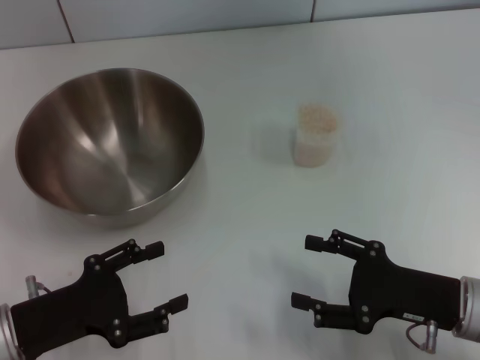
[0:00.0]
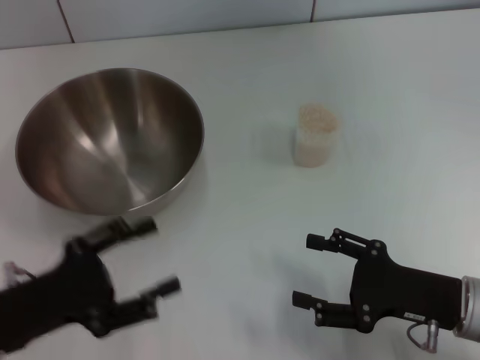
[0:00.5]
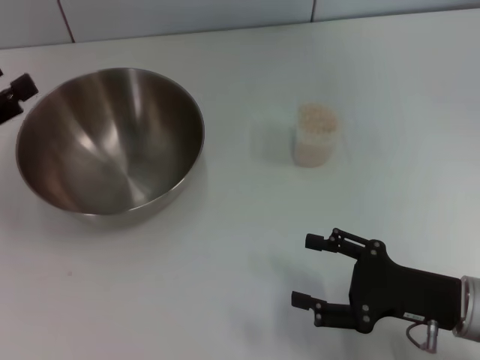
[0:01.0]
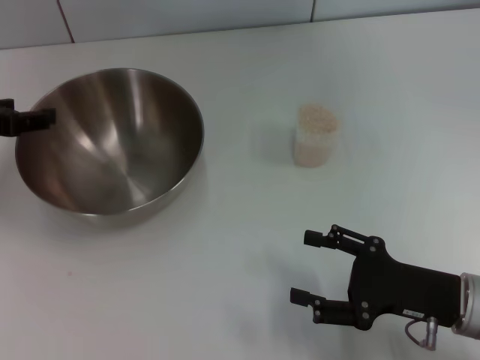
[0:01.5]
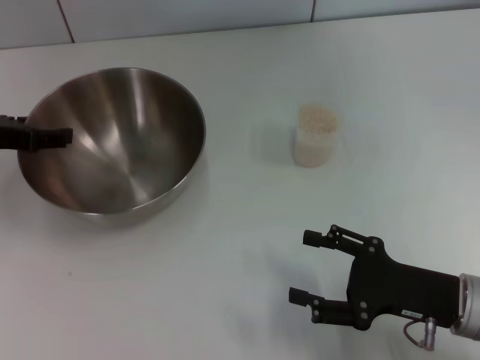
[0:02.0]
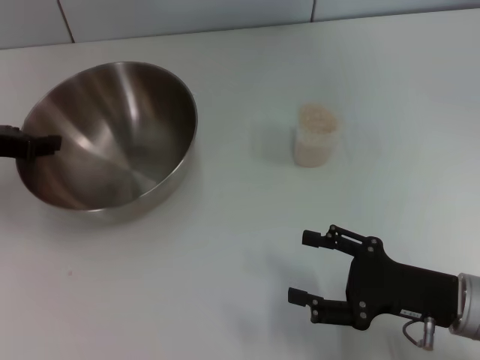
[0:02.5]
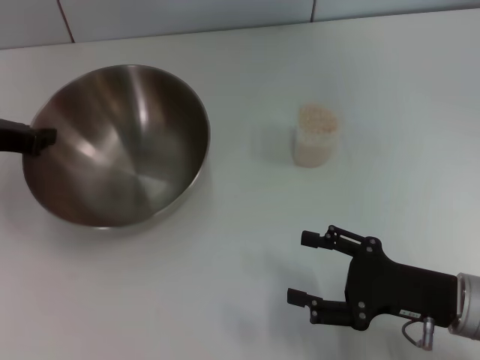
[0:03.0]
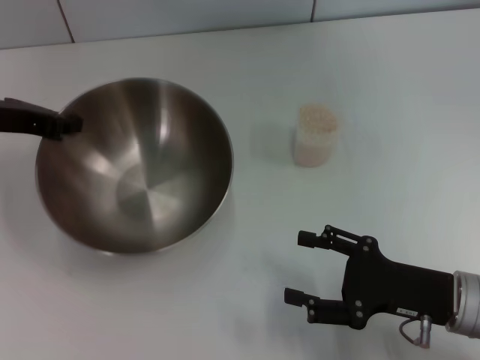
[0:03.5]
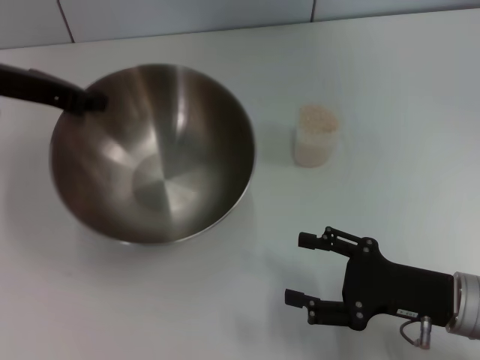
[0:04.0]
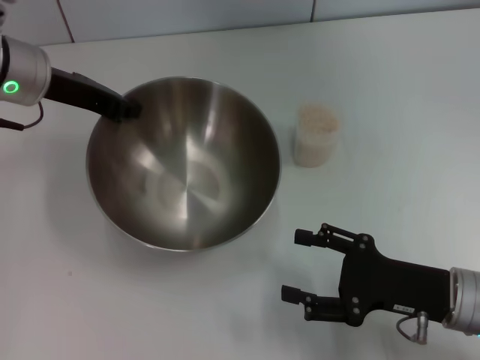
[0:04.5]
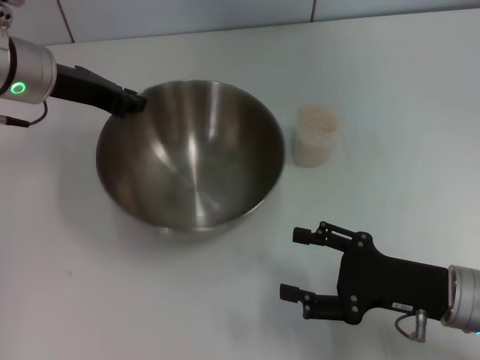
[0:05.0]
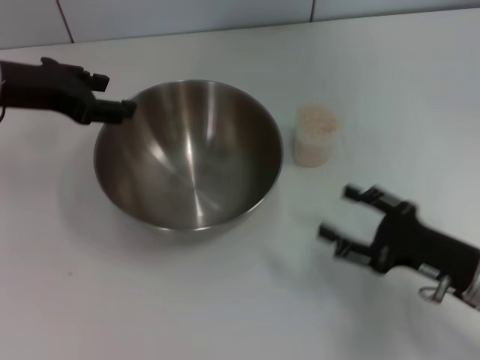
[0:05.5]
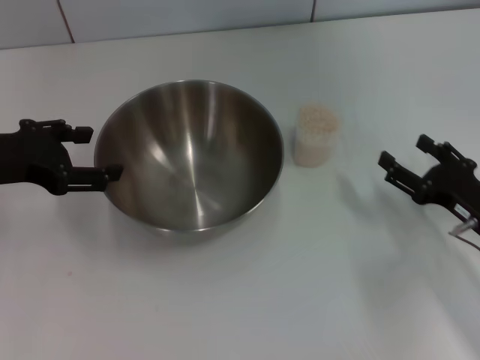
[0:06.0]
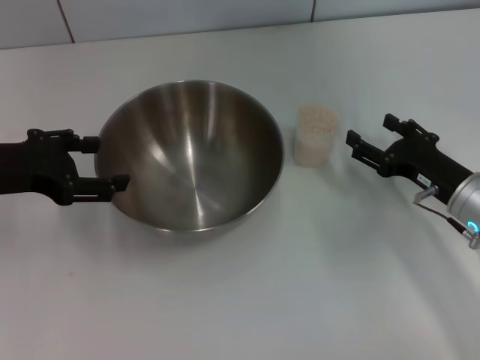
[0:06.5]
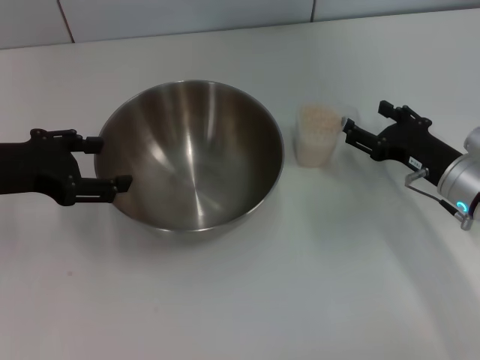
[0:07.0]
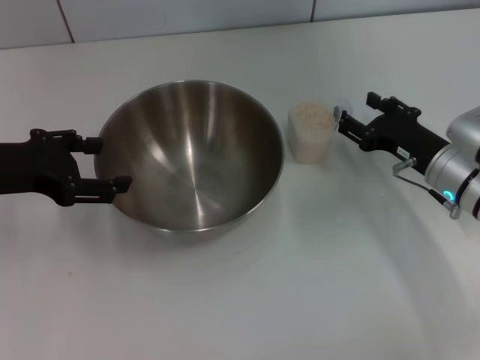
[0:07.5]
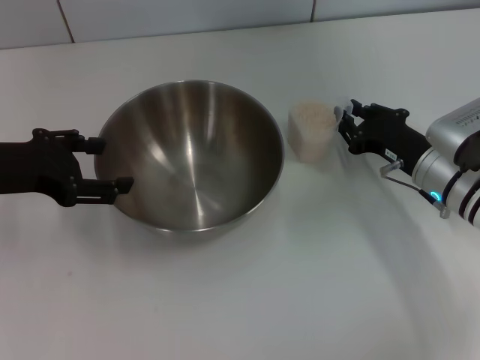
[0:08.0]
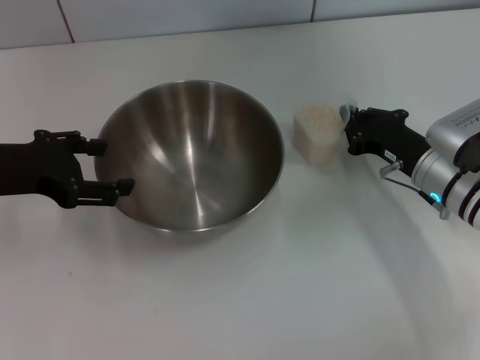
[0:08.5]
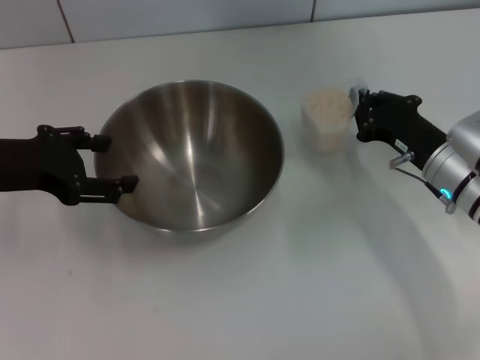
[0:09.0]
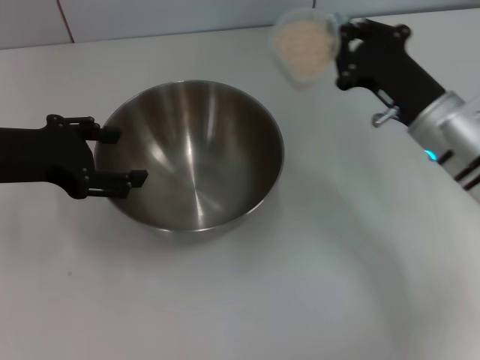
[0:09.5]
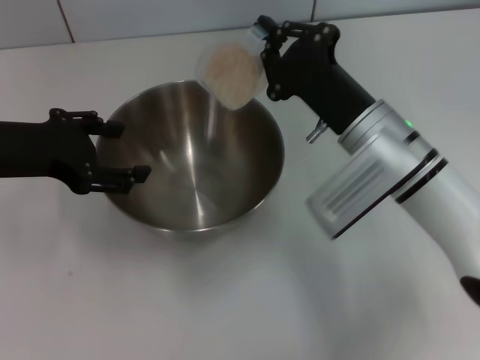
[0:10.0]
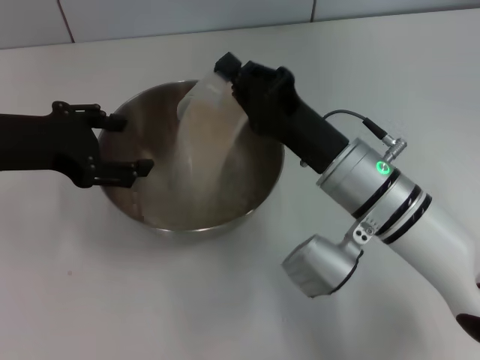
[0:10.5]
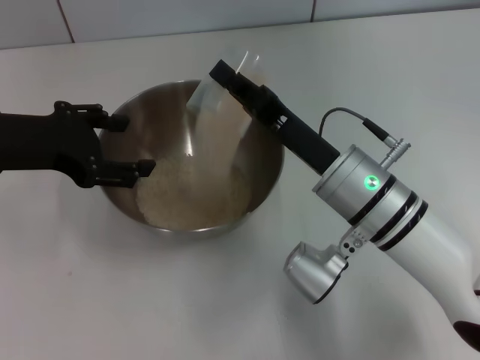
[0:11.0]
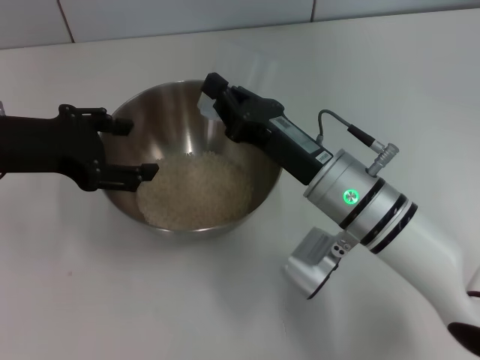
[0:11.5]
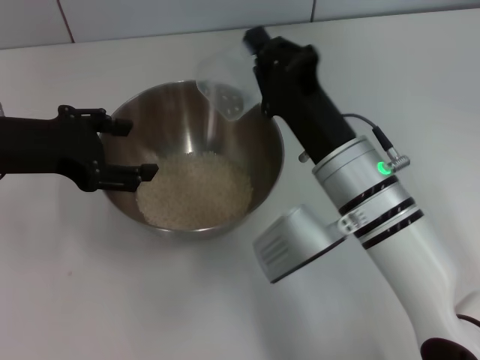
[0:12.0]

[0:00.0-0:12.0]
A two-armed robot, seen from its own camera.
Task of the whole recording: Place the bowl in the middle of the table with one hand and pour the rice from the grain cup into it with the other hand.
Step, 0.0 to 4.0 s: Pick up the bowl with the left gripper.
Step, 4.5 to 5.5 s: Place the bowl in the center of view with the left gripper.
Step, 6.0 to 9.0 s: Pick up the cup with rice in it with the right gripper.
0.0 to 2.0 s: The left gripper is displaced forward and upward by roughly 20 cm.
2.0 to 4.0 s: The left gripper shifts by roughly 10 cm, and closes up.
4.0 to 6.0 s: The right gripper heads to the right, covering about 5 cm. The left gripper is displaced backward by approximately 10 cm, and opens its fingers.
6.0 to 8.0 s: The right gripper travels forward and to the left by about 10 cm, and closes its fingers.
8.0 to 10.0 s: The right gripper heads to the left and upward, covering some 10 cm, and closes.
10.0 to 12.0 s: The right gripper shifts by approximately 5 cm.

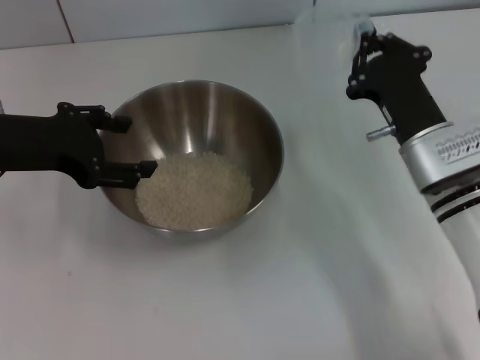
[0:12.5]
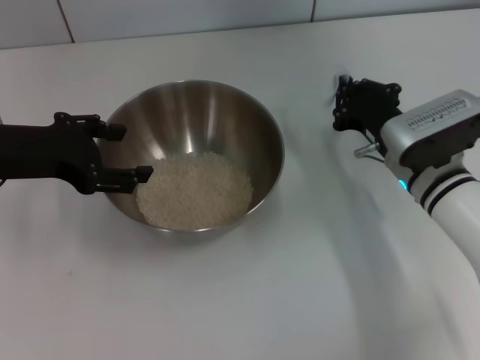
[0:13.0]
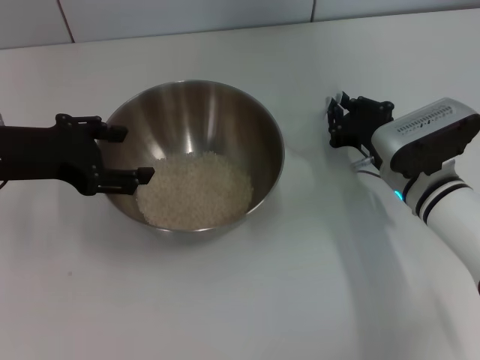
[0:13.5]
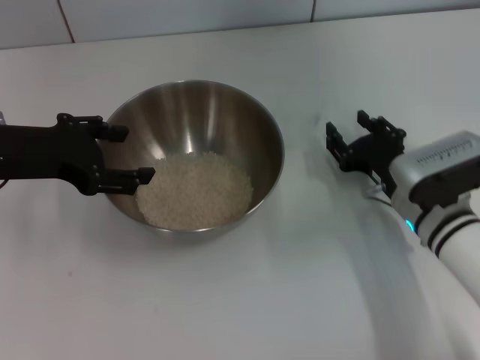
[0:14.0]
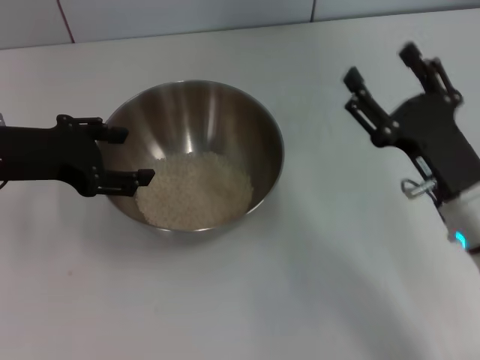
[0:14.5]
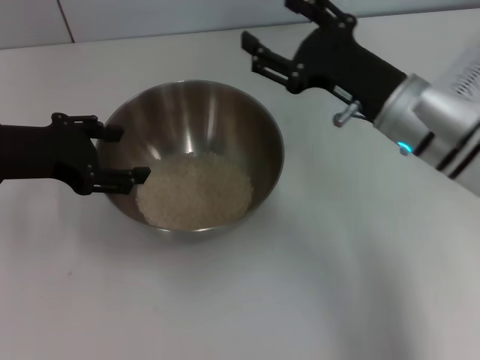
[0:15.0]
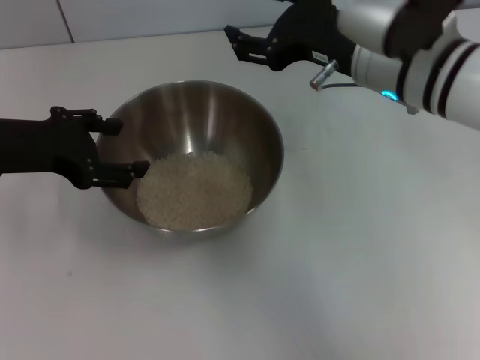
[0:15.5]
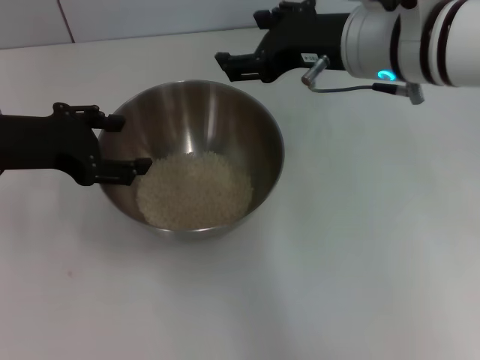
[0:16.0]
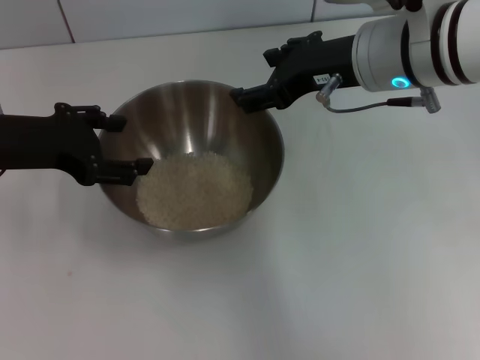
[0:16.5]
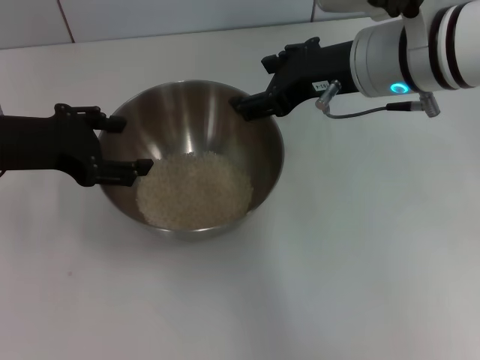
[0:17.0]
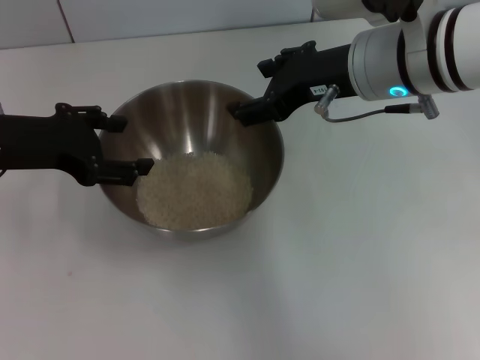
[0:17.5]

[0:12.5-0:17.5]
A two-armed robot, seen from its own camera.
Task of the whole recording: Place the bowl in the middle of the table with one hand and pour the rice from the grain cup into it with the other hand.
Step, 13.0 to 14.0 s: Place the cup on the table with the right gripper.
12.5 to 15.0 s: The right gripper goes some 5 cm upward, and opens its fingers.
15.0 to 17.5 s: The right gripper shifts approximately 10 cm upward.

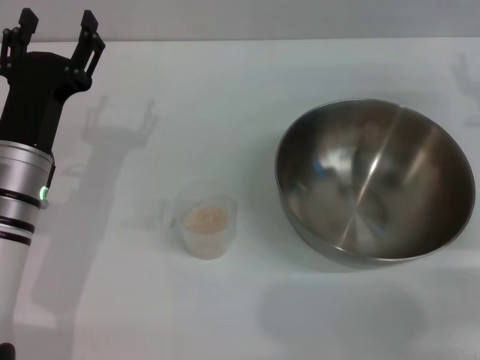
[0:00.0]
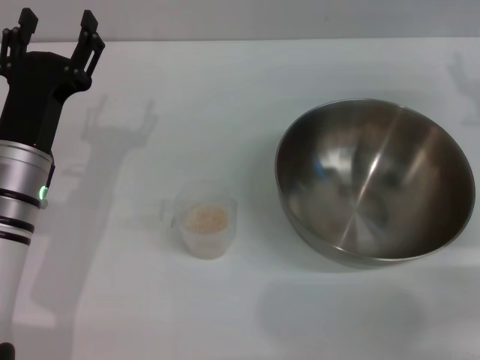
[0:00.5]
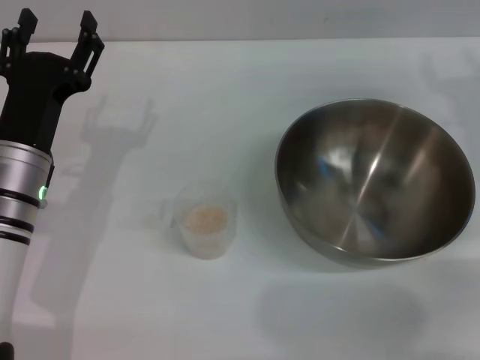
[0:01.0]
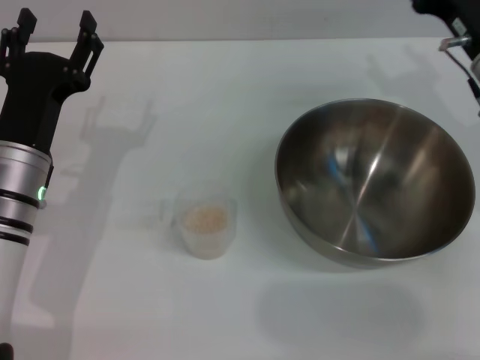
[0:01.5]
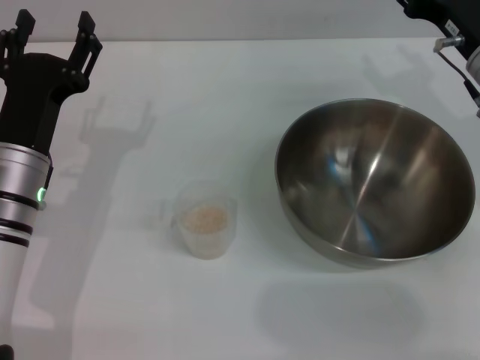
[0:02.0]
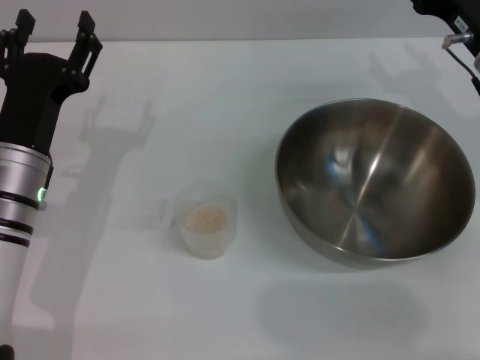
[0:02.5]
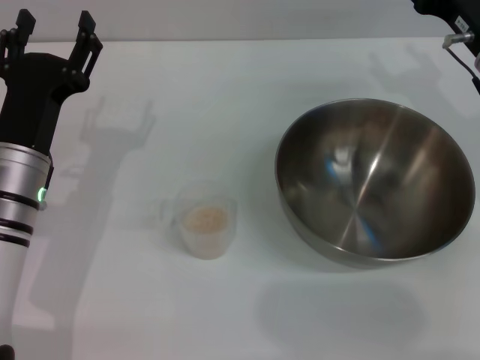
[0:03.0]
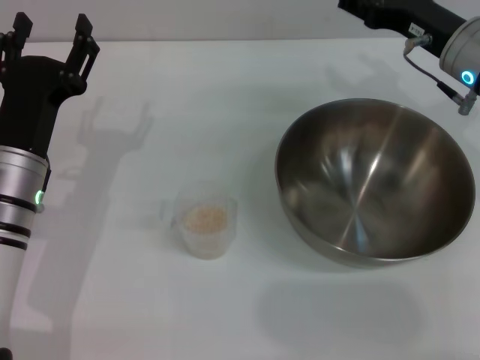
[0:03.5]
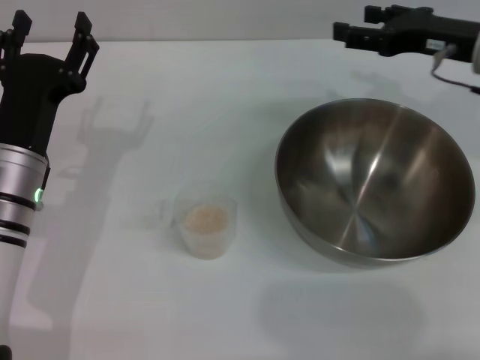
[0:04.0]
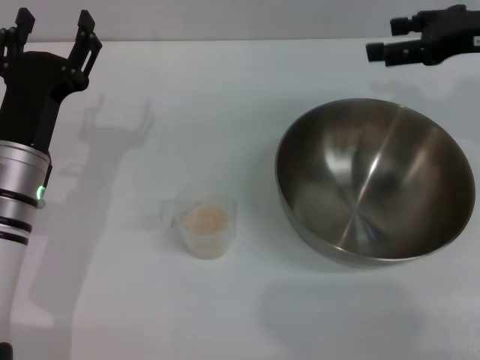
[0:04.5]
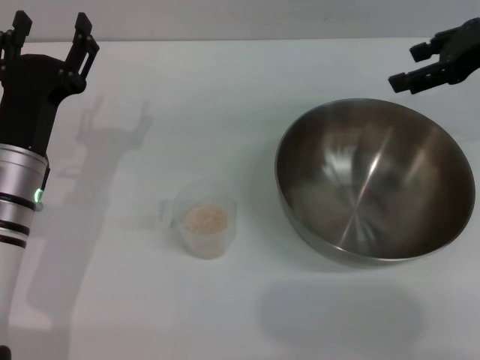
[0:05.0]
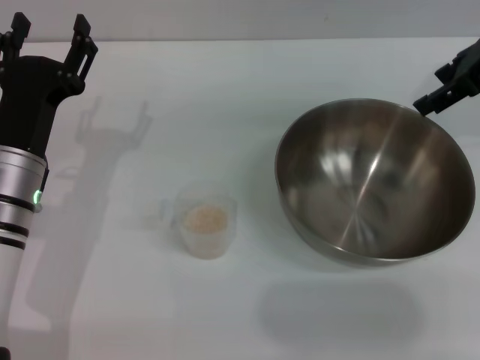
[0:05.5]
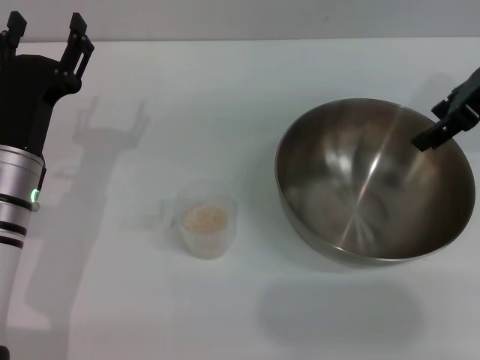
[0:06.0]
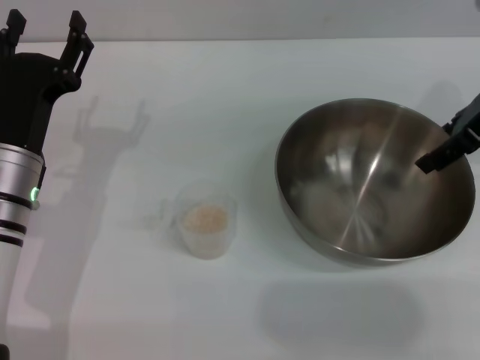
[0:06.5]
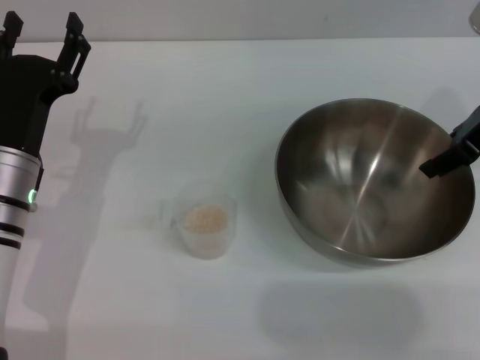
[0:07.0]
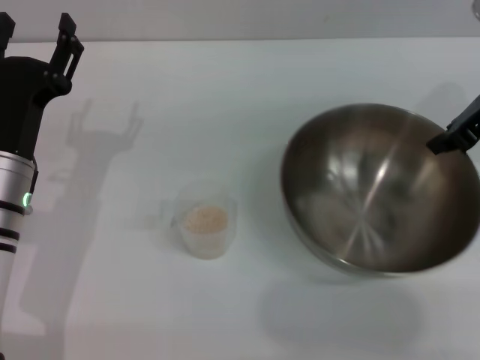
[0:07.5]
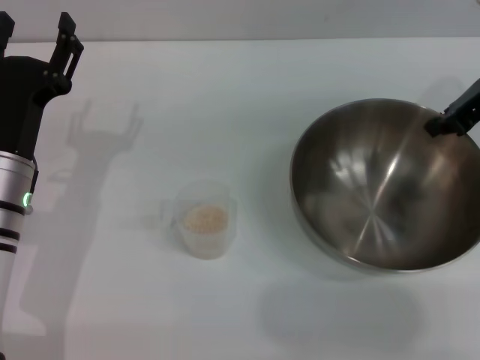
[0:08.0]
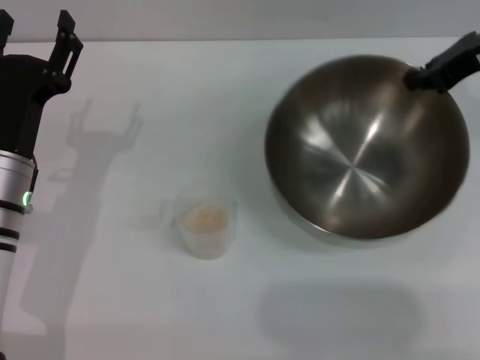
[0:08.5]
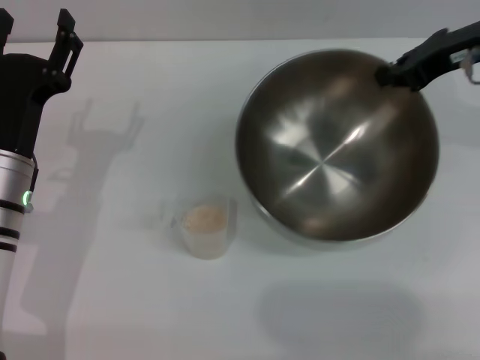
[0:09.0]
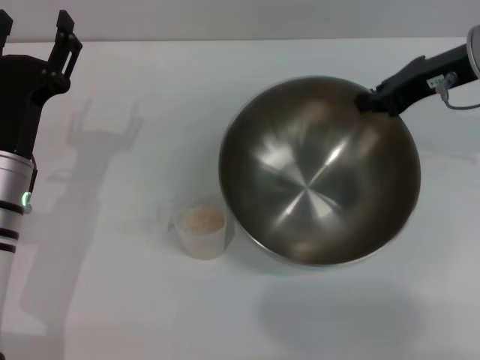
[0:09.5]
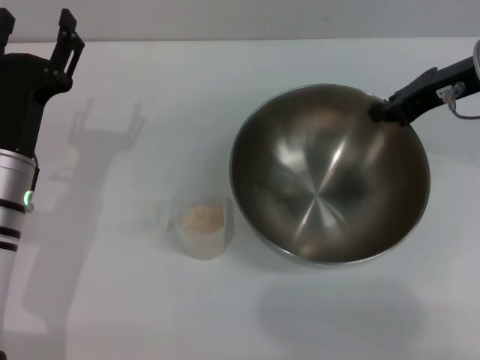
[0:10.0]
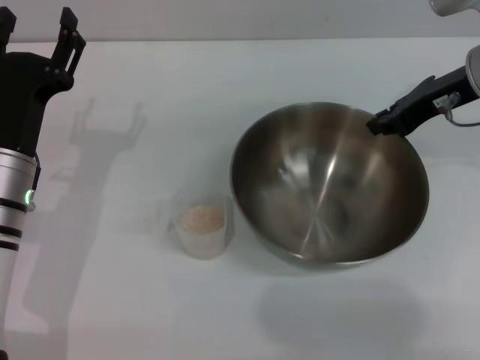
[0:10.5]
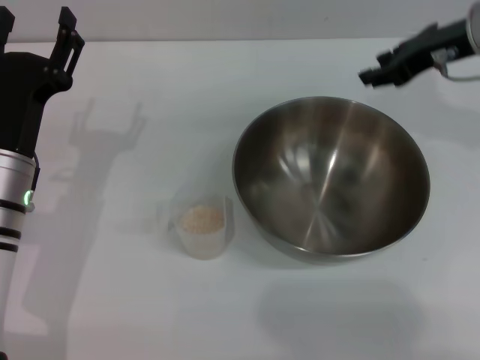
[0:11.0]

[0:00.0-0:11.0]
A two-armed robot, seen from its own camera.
Task of the whole recording: Place the bowl in the middle of the table with one hand and pour the rice from the grain cup into it with the other hand.
Step, 0.0 to 8.5 s: Pick up the bowl with the right gripper.
Step, 9.0 to 10.5 s: Place the bowl in the center of view with the right gripper.
0.0 to 2.0 s: The right gripper moves to the left, roughly 5 cm.
2.0 to 3.5 s: The grippers move only a little.
3.5 to 5.5 s: The right gripper shifts about 10 cm upward and to the right.
5.5 to 7.5 s: The right gripper goes some 5 cm downward, and closes its fingers.
9.0 to 11.0 s: The right gripper opens.
